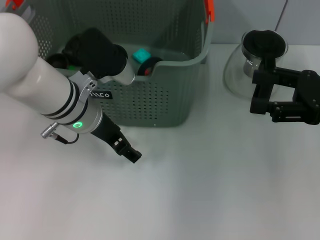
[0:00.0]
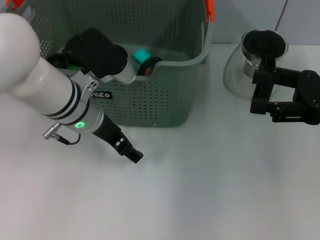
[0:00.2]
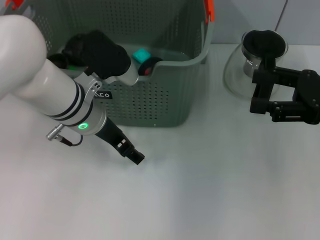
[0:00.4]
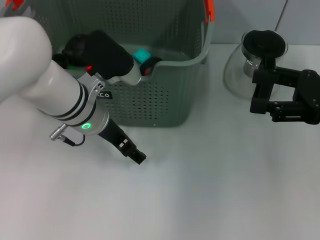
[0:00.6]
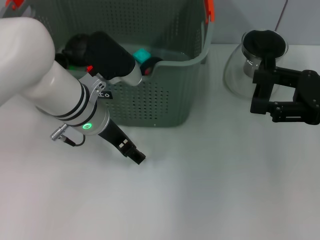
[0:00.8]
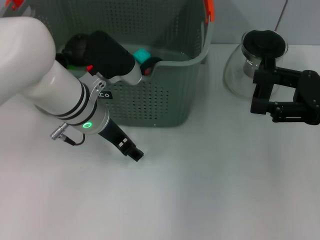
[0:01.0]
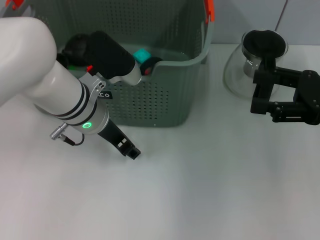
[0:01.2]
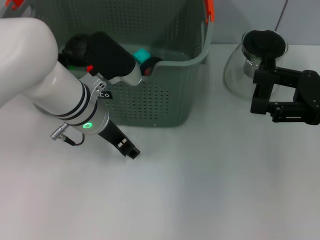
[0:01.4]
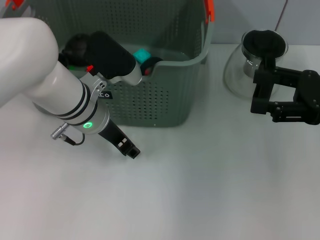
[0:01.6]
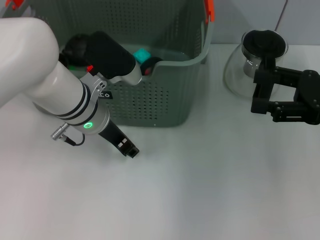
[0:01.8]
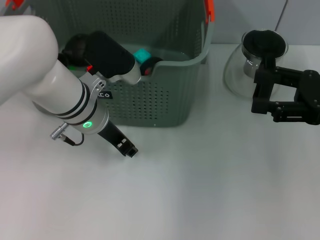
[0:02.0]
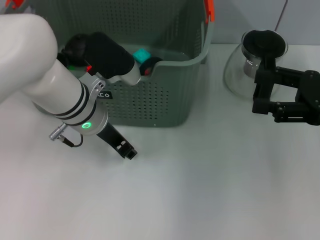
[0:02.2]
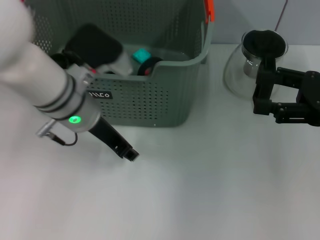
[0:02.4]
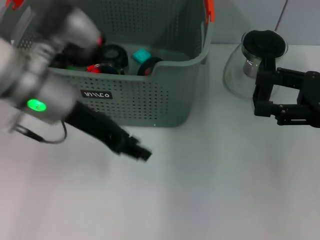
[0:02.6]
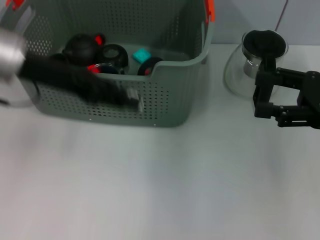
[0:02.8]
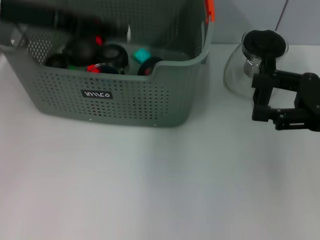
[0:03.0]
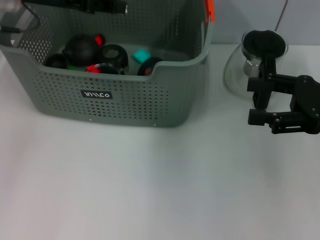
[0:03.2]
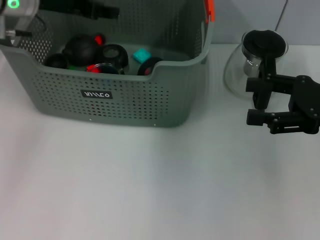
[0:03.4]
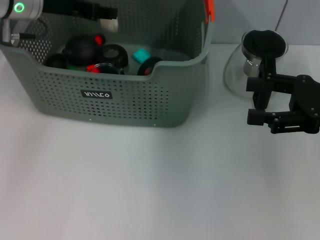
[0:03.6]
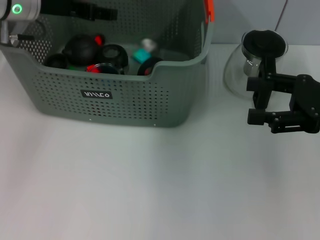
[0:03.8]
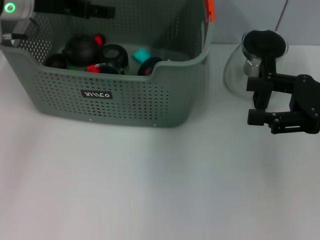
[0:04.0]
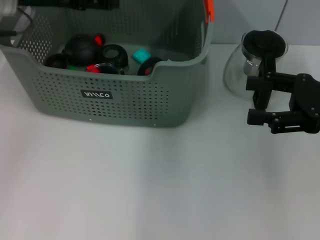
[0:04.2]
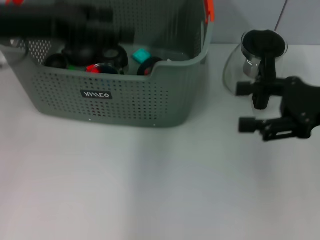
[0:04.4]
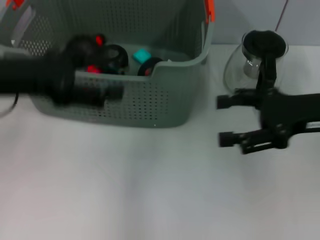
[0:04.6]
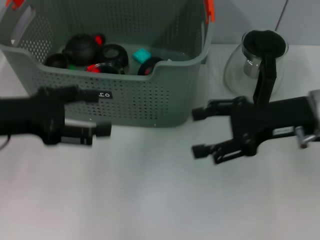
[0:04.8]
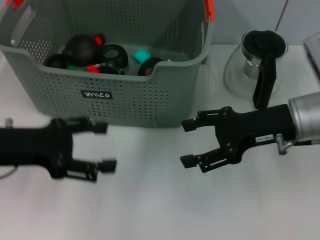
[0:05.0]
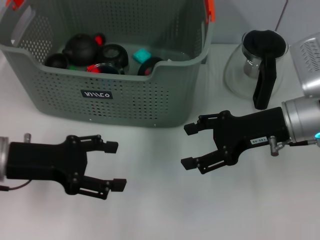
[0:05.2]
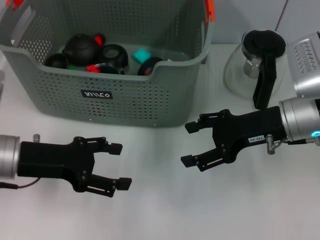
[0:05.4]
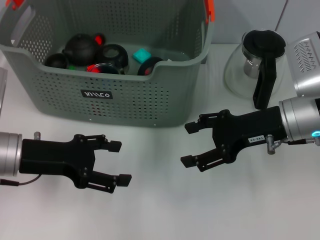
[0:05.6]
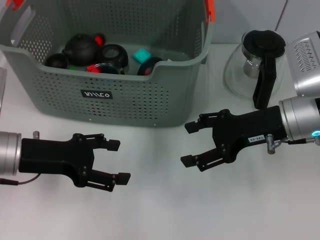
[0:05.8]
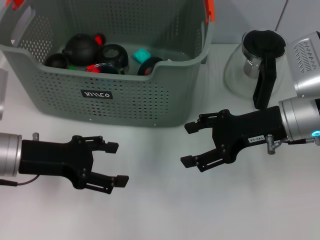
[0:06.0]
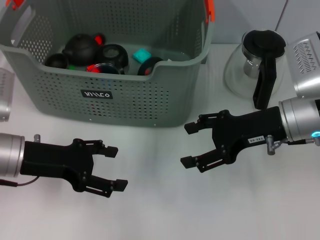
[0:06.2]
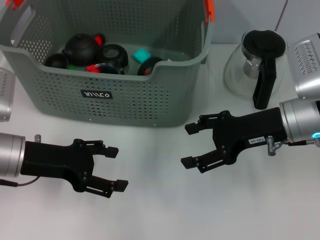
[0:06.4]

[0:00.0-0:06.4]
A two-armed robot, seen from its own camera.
Task of the whole recording: pick up the teacup on the table and place it into the storage bin, pick up the block on the table and place it into the storage bin.
Step, 0:02.0 to 0:03.8: Place the white block in the storage box with left gripper.
0:00.0 to 0:01.6: The left gripper closes up.
0:01.6 to 0:03.2: The left gripper heads upward, to the left and forward, covering about 20 cm.
0:03.2 to 0:04.8: The left gripper goes about 15 cm backward and downward, and opens up. The right gripper is displaced to the left by approximately 5 cm.
0:04.8 to 0:06.4: The left gripper is displaced downward by about 10 cm.
